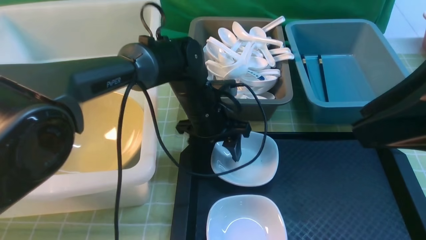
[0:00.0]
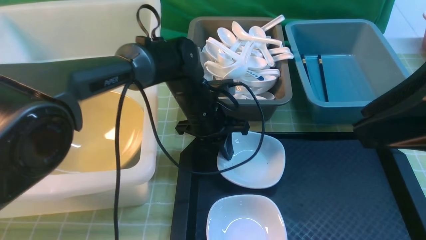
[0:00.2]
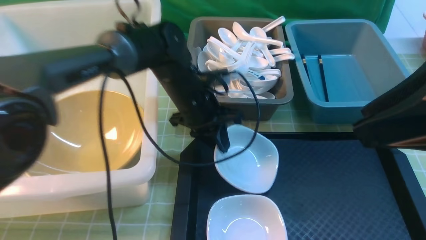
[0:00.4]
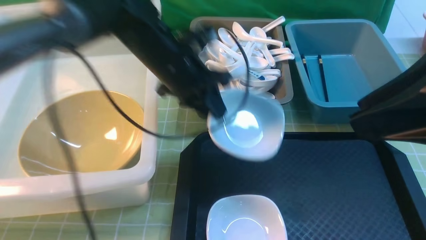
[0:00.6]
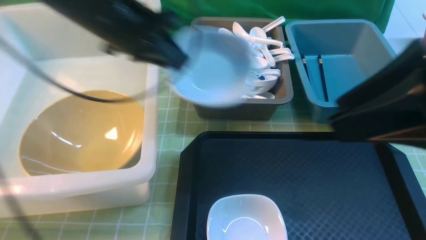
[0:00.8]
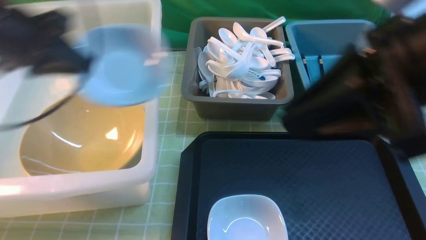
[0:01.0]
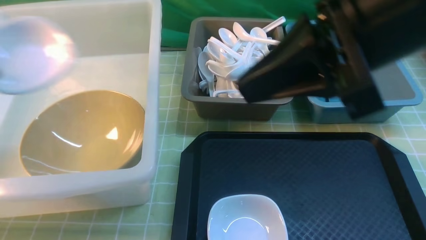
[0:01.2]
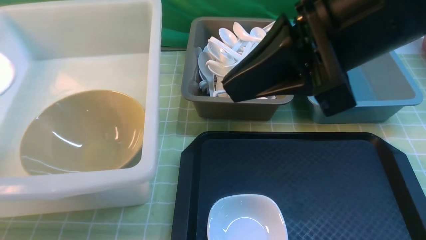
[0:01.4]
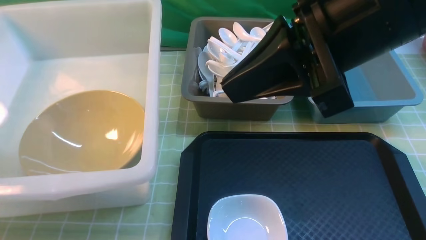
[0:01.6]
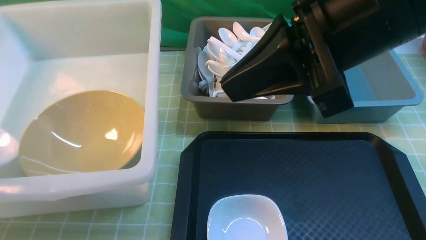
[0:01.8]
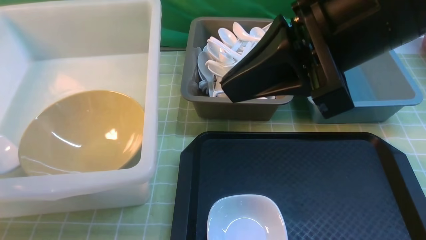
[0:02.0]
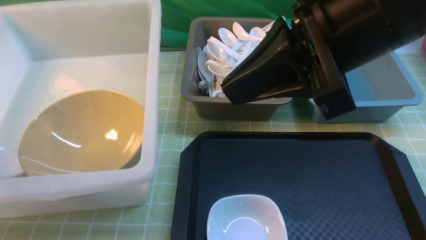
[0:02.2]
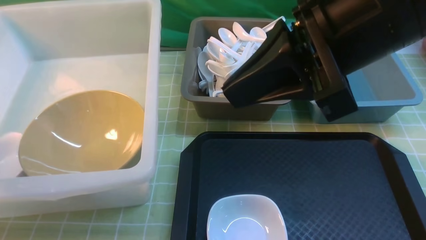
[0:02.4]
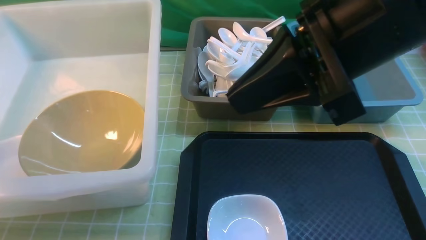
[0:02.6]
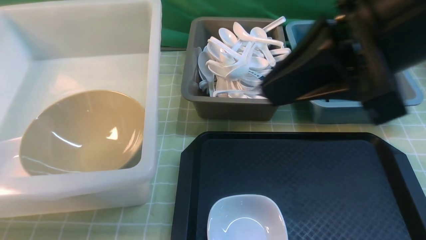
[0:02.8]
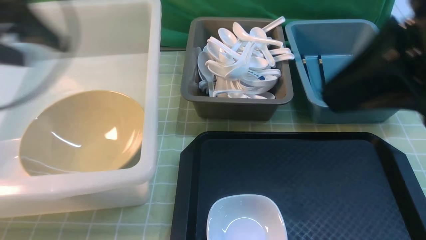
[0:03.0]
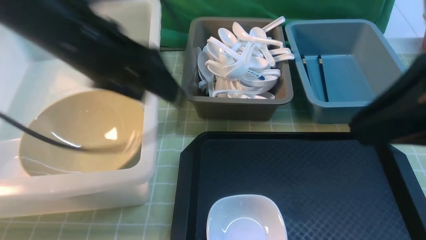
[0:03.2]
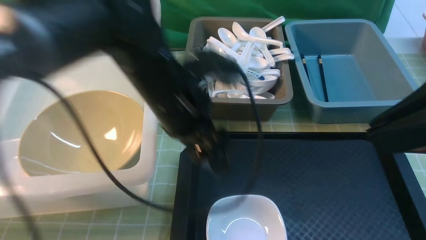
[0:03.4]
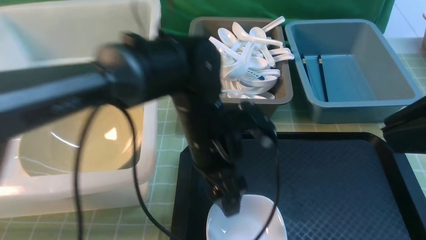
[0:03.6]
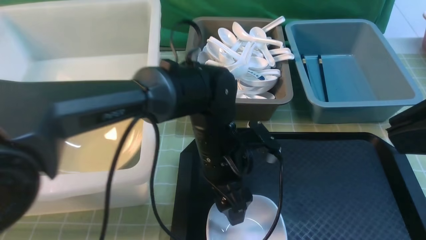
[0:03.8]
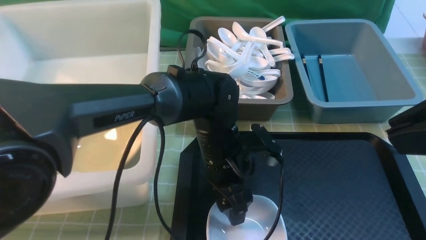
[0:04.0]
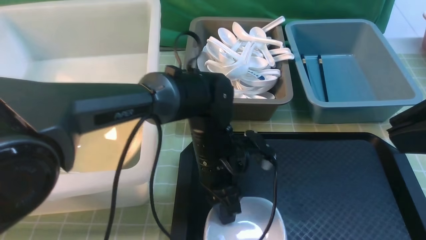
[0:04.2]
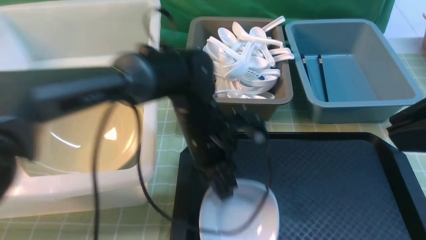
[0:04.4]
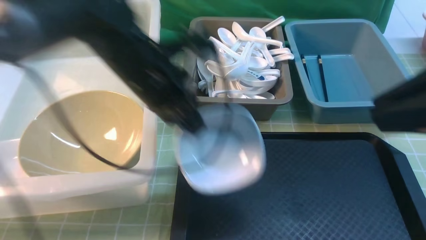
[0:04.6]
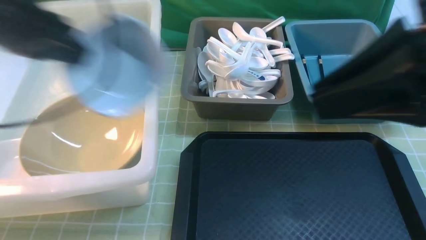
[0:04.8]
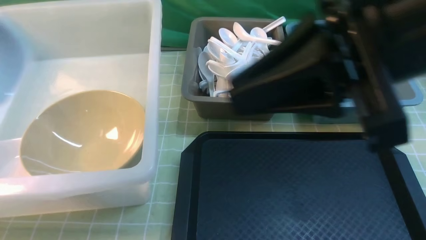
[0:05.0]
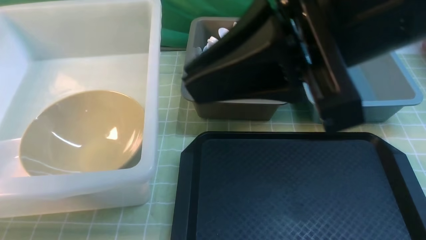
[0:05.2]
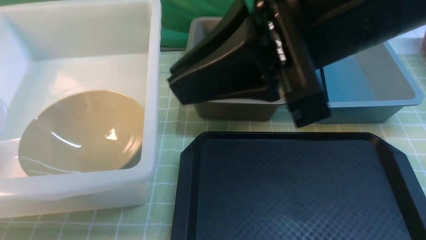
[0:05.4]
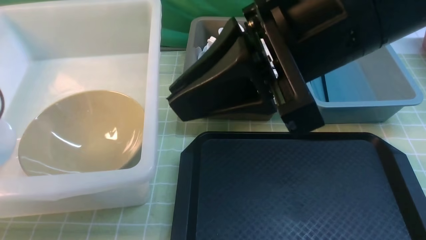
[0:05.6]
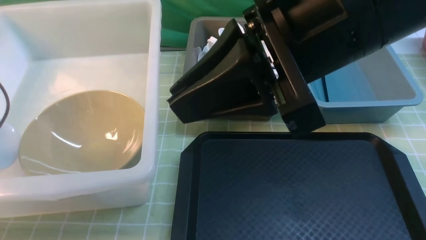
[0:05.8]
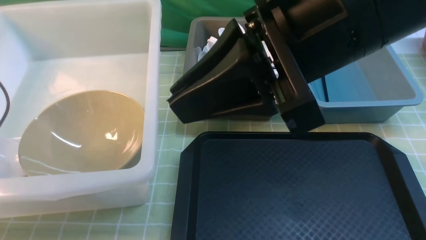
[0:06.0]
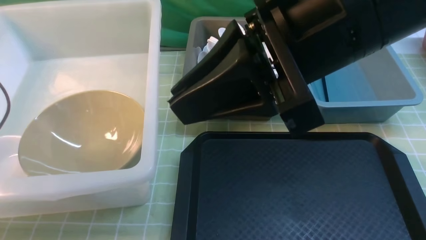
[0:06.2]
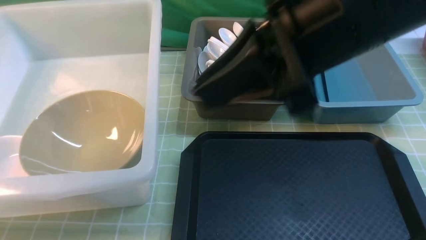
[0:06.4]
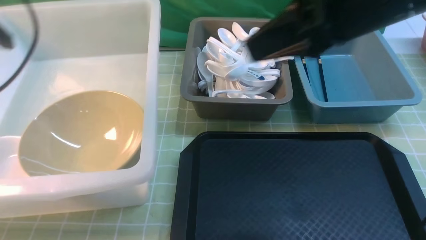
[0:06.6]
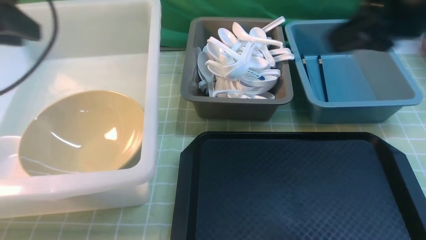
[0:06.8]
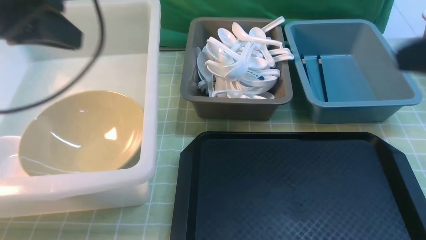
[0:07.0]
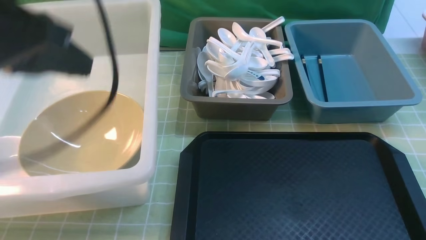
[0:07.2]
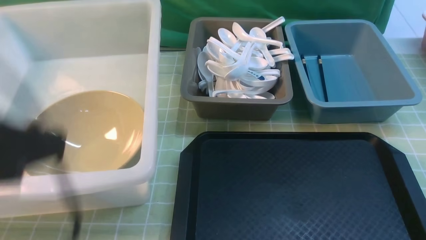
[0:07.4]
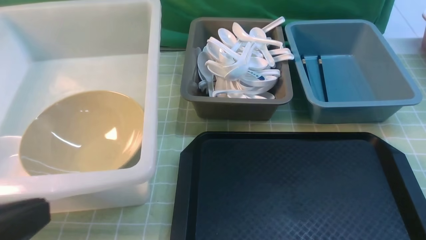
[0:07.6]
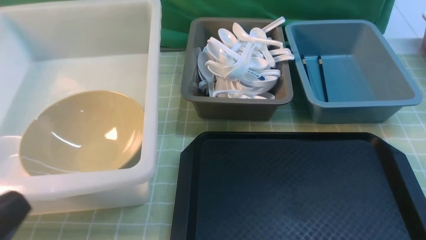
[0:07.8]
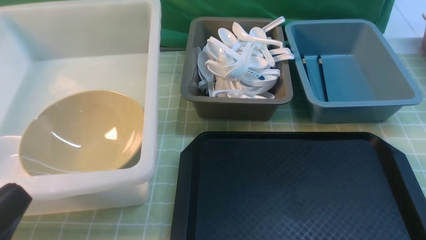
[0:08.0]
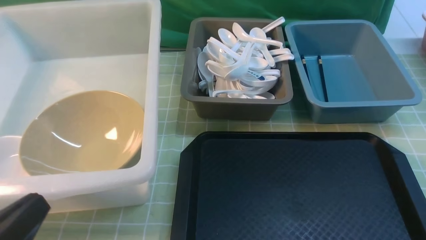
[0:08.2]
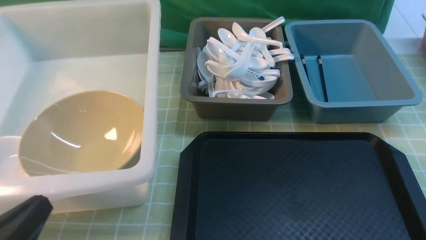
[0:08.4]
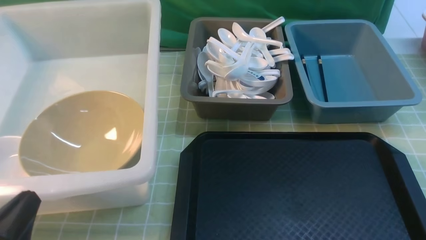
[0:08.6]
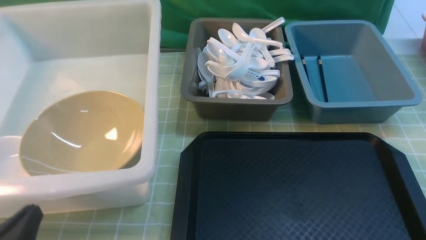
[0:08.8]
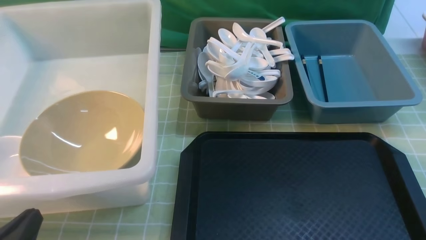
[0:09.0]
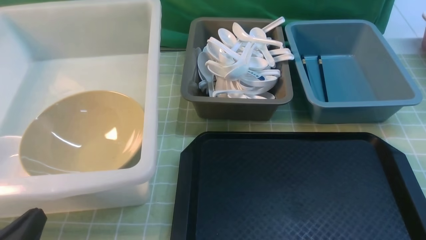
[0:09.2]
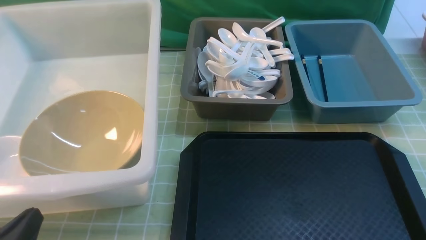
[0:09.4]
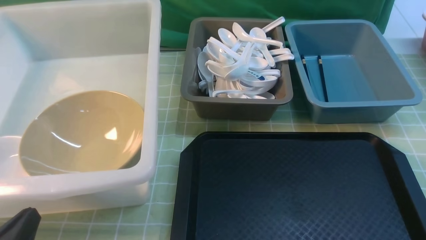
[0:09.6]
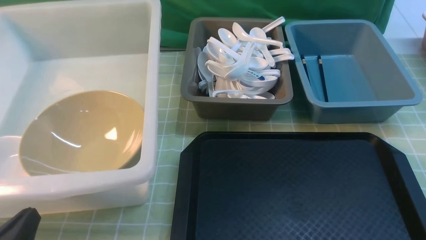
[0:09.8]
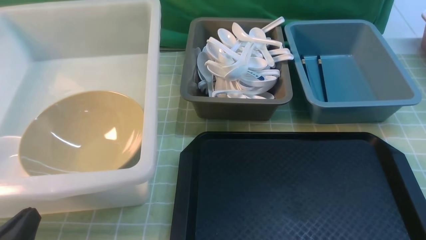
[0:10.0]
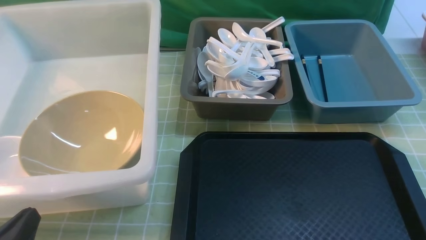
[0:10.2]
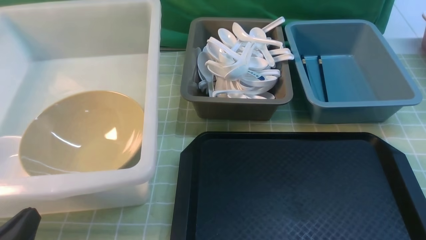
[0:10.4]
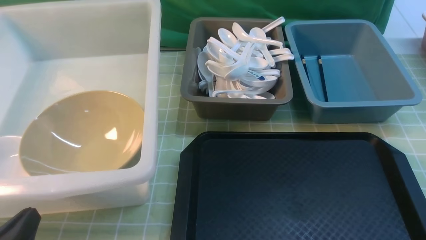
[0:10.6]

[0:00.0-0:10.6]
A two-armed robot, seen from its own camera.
Task of the whole recording: on green table put chopsticks spoon bowls plates into blue grey white boxes.
Step, 0:00.6 to 0:02.8: use the left arm to put the plate into the large storage box on the left.
Step, 0:03.0 to 0:04.4: use the left arm to grab the plate.
Step, 0:04.6 to 0:07.0: use the left arm to put the plate into the large storage box on the left.
0:00.0 to 0:01.6: The left gripper moves to the left, roughly 40 cm, and closes its fingers; the right gripper is displaced to the left and forward by about 10 cm, and closes up.
0:01.6 to 0:03.0: The left gripper shifts some 20 cm to the right and upward, and opens, while the right gripper travels to the right and backward by roughly 10 cm.
0:03.0 to 0:04.6: The left gripper travels to the right and downward by some 10 cm, and closes up.
0:04.6 to 0:06.0: The right gripper moves to the left and forward, some 15 cm. The left gripper goes some 30 cm to the left, and opens its fingers.
0:06.0 to 0:07.6: The left gripper shifts some 30 cm backward and to the right, and closes its fingers. Meanwhile the right gripper is displaced to the right, backward and downward by some 30 cm.
0:07.6 to 0:09.0: The left gripper is displaced downward by some 15 cm.

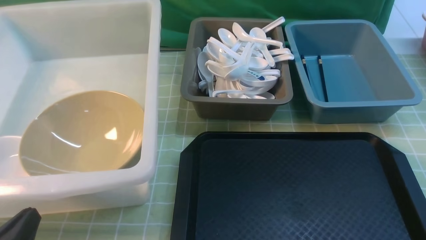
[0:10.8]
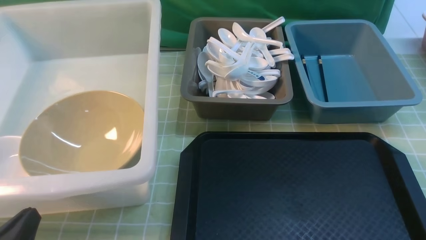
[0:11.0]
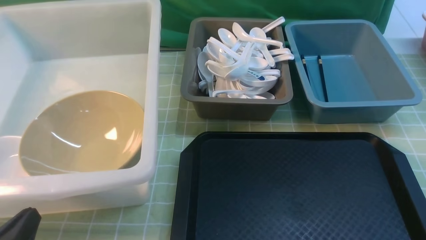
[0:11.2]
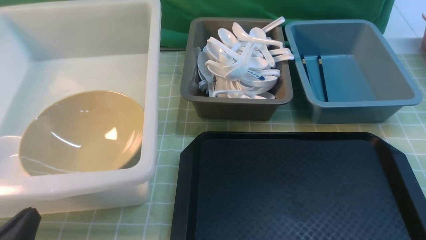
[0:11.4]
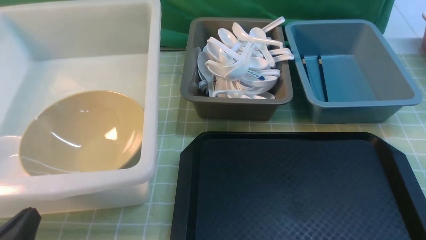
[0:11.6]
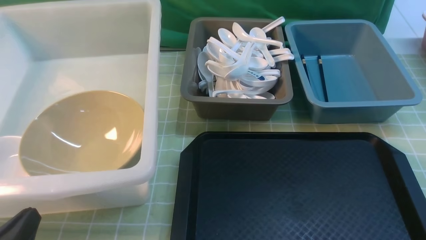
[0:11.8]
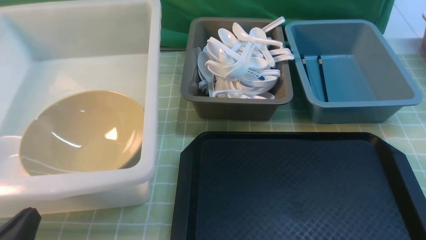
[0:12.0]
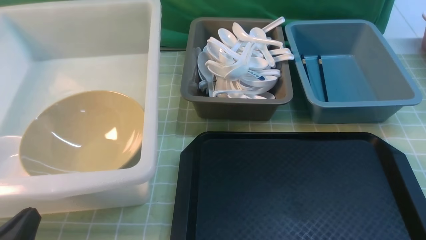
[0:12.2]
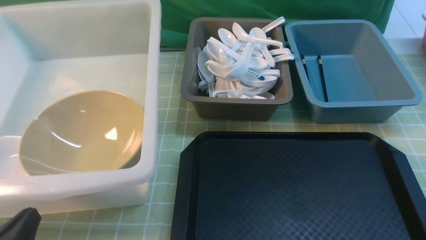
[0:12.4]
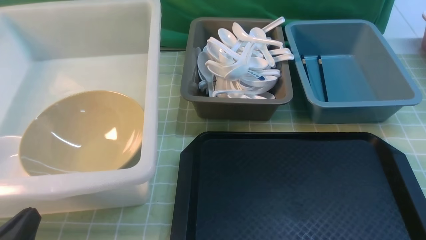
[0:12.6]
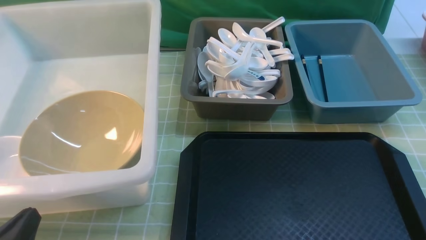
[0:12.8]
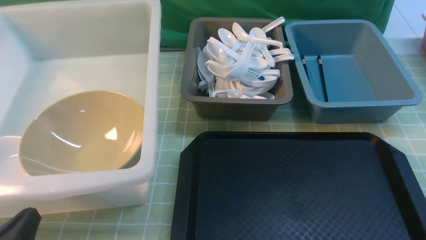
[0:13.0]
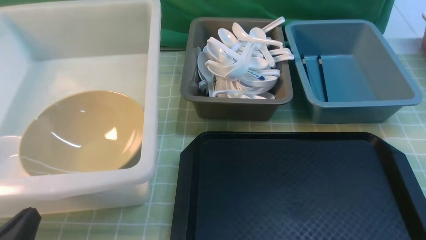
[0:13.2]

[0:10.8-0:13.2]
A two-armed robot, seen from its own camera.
Task of the whole recording: on green table put chopsticks spoon bowls plates into blue grey white boxes.
0:10.8 to 0:13.2: The two grippers keep their place.
